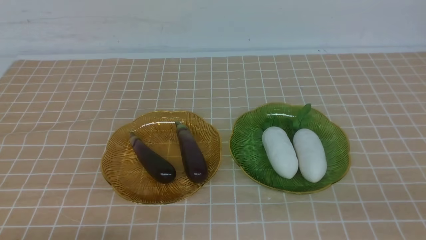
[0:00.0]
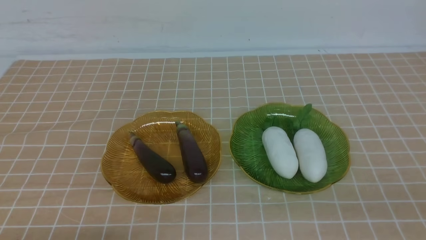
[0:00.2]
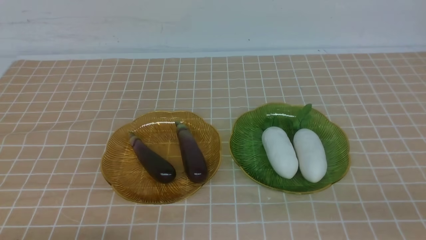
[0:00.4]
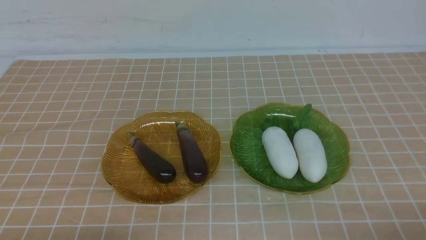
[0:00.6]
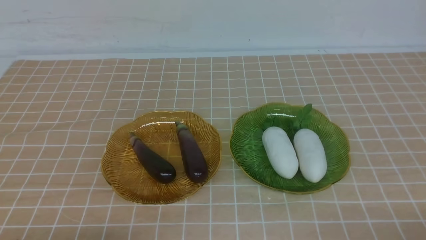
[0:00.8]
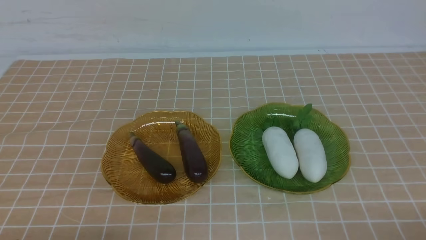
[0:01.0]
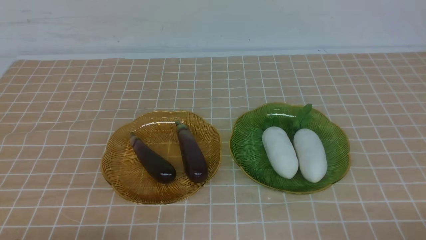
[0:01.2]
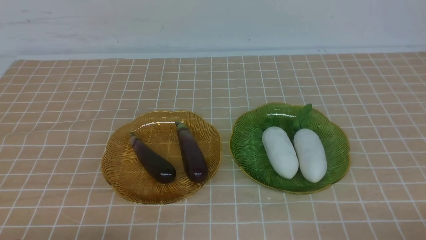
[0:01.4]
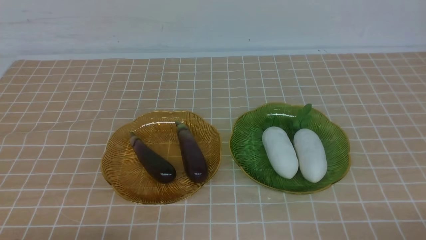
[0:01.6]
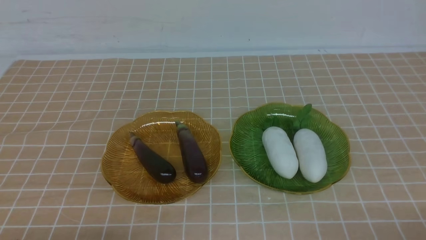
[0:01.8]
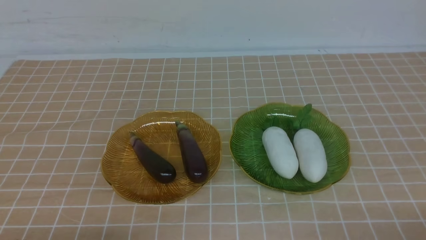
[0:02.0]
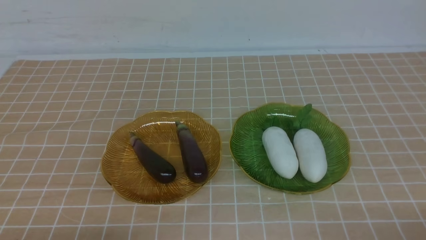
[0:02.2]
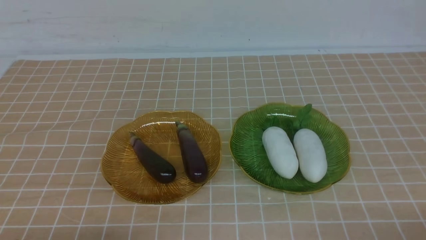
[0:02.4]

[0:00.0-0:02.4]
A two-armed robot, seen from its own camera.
0:01.2 to 0:02.4: The two grippers keep their place.
